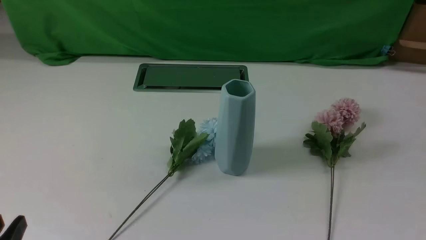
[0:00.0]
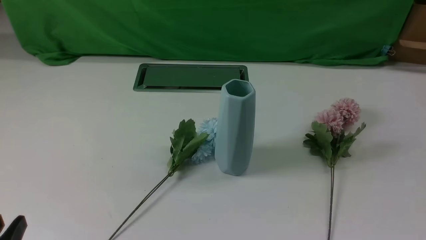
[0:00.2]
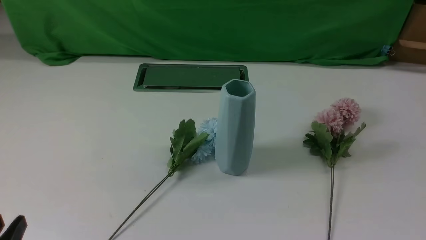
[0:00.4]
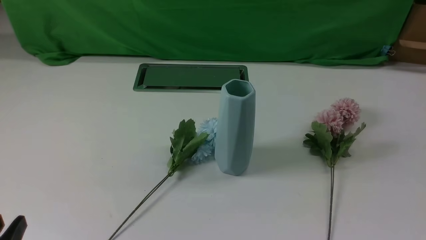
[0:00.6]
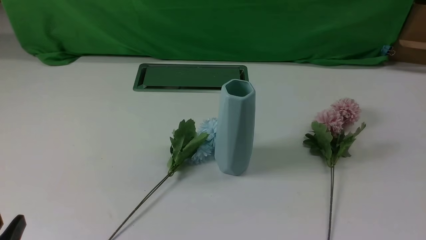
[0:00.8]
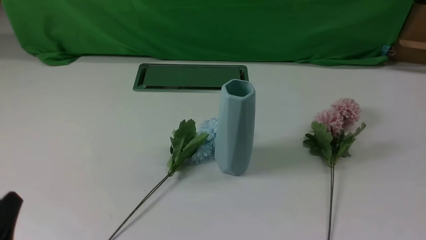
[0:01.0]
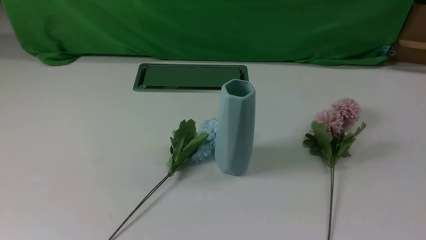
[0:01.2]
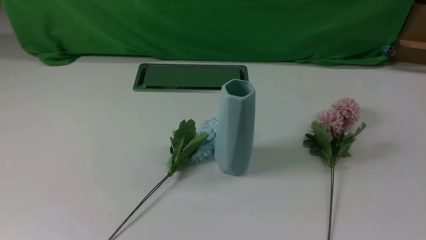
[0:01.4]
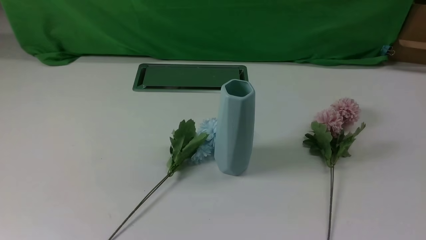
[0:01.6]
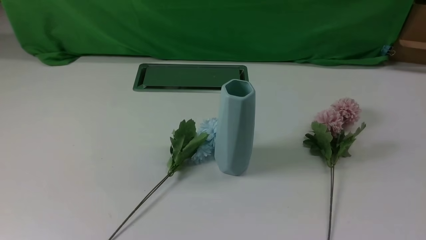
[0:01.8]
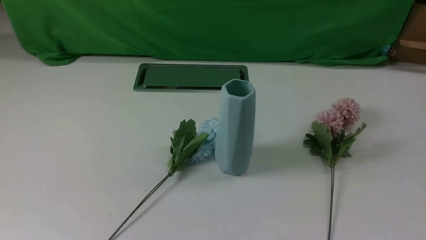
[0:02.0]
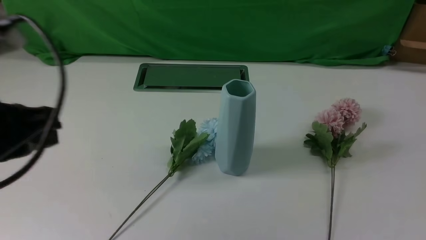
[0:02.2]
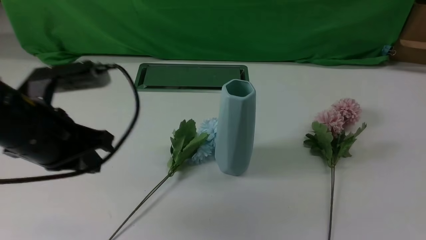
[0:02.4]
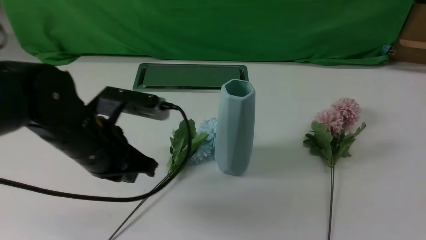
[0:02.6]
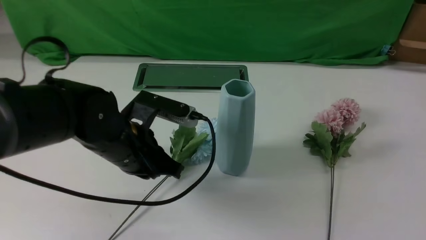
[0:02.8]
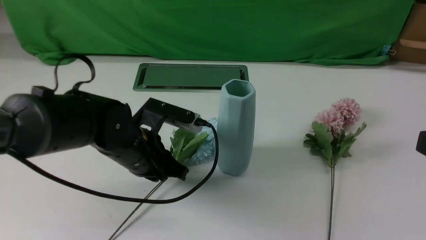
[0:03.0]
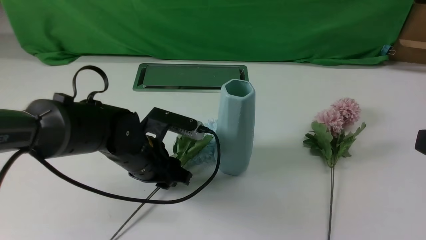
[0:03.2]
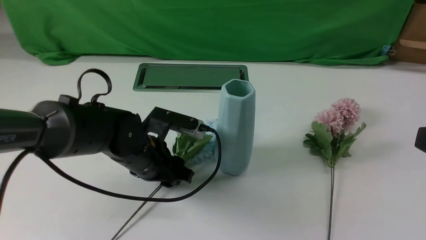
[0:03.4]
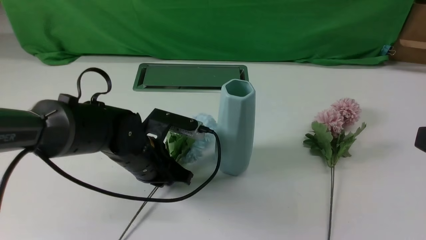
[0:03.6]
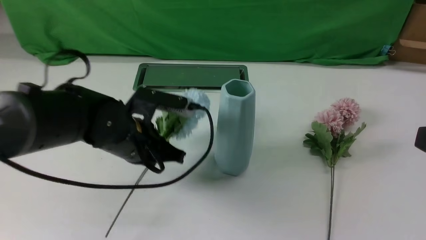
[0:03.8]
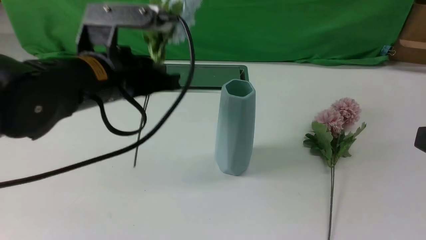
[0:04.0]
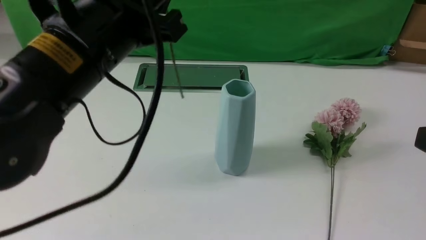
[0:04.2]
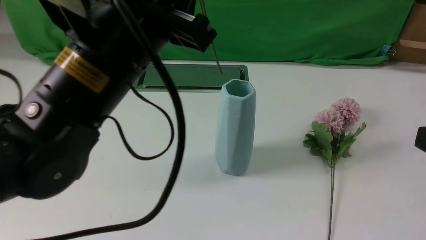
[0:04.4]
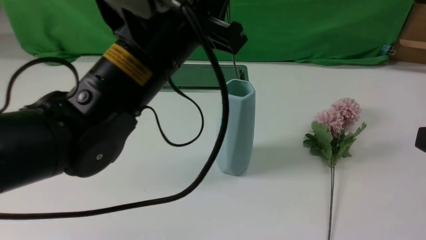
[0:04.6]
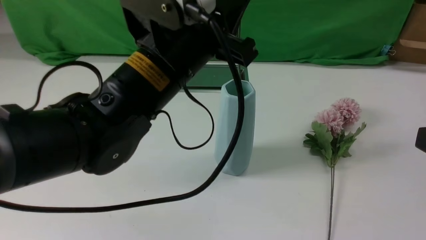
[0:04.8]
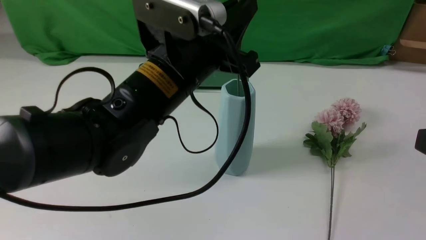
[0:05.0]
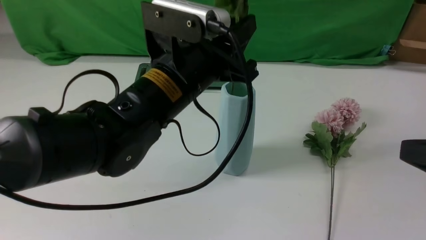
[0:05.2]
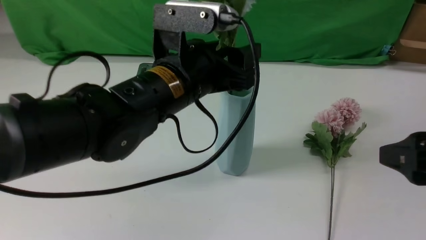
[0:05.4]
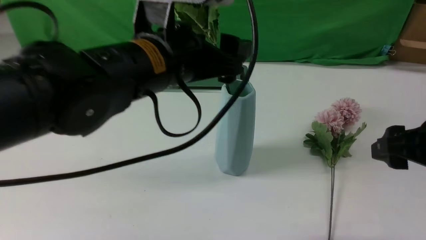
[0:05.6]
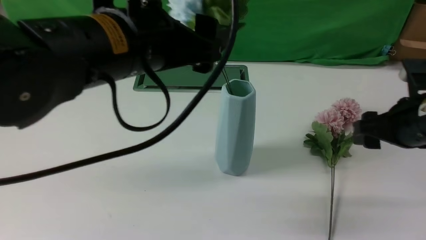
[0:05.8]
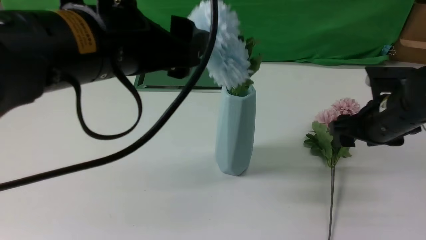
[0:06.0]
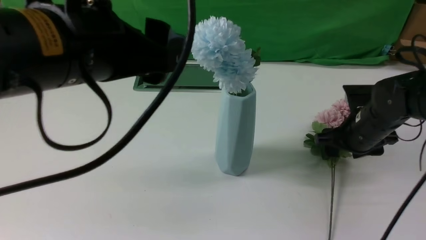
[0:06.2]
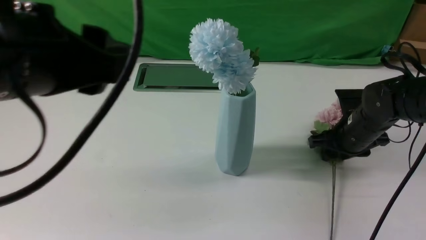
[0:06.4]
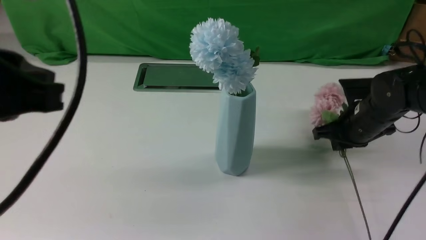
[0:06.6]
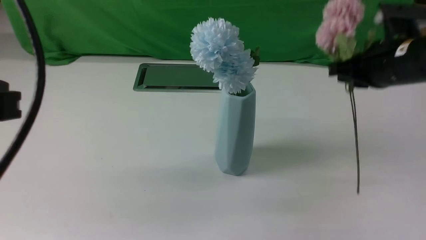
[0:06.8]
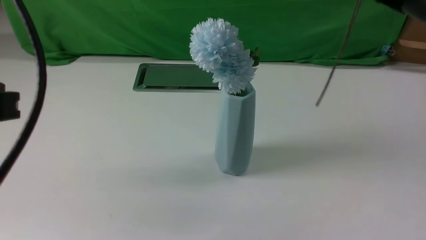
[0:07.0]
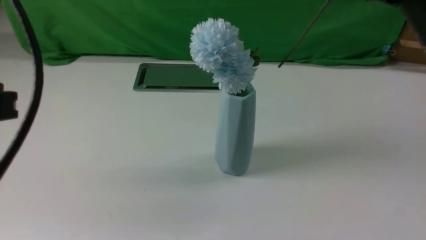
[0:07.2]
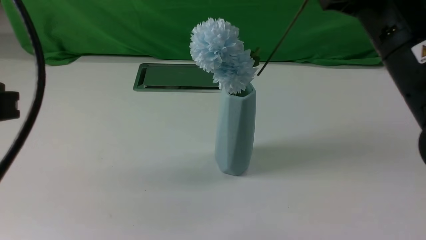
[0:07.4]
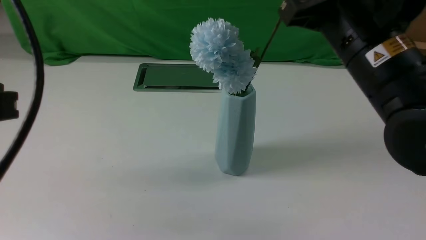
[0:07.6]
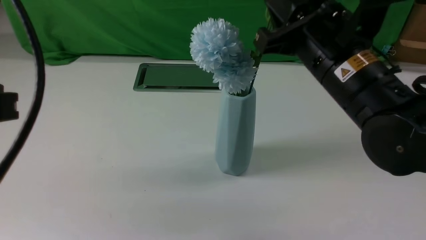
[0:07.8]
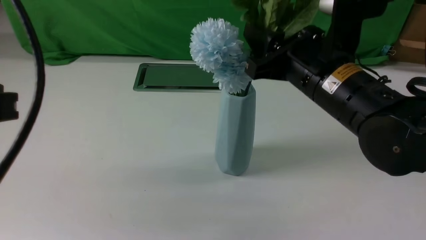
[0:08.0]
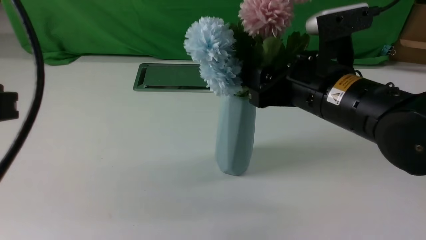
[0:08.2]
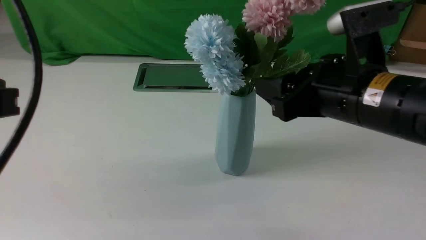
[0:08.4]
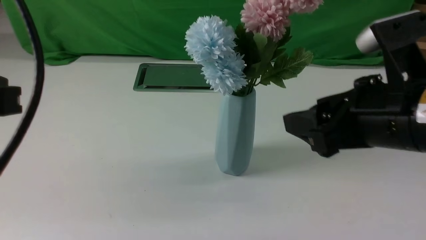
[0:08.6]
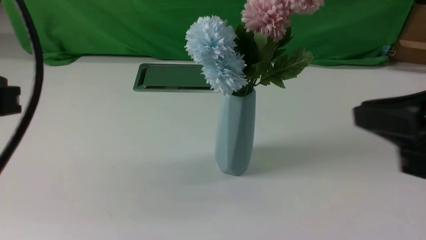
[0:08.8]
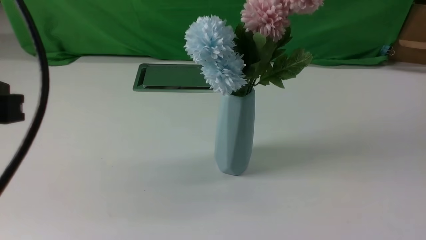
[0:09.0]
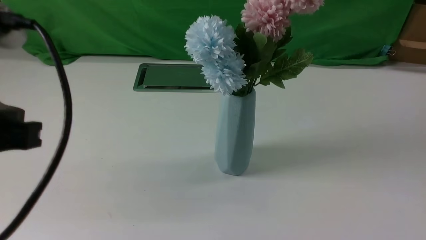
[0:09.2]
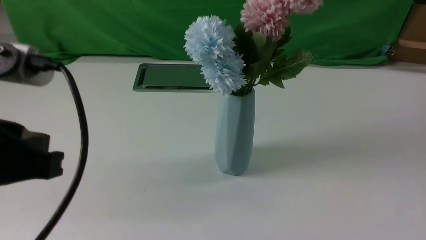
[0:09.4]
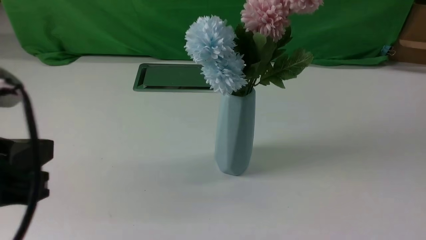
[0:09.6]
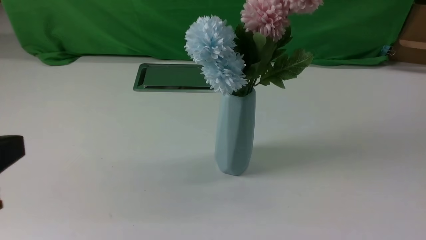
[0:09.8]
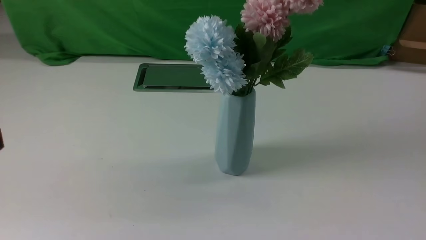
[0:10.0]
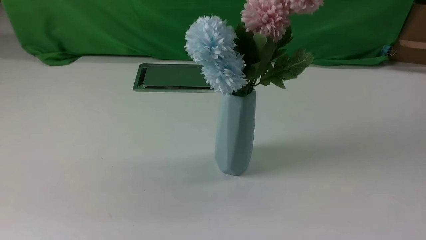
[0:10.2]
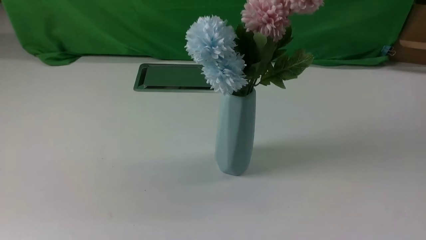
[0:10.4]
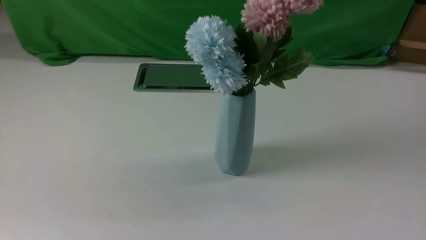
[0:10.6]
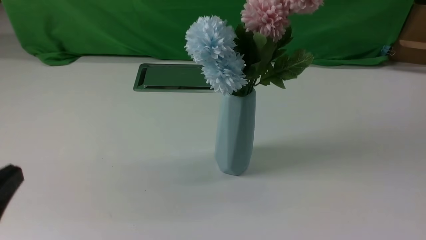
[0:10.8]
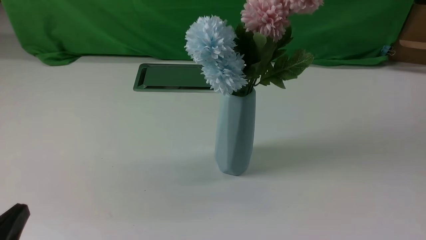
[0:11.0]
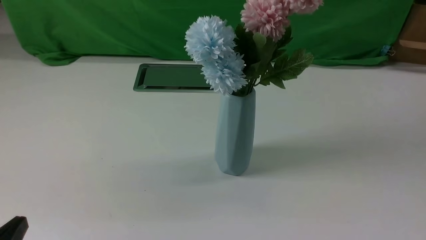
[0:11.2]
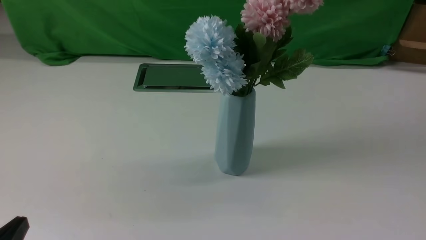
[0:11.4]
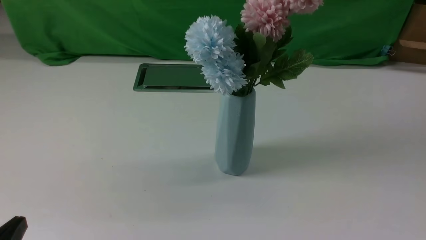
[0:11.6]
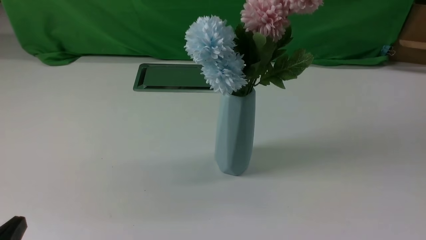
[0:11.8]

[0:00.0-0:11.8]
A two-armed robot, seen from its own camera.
Task of the whole recording: insert the flowers into the vase on the white table.
Step, 0:00.0 to 0:03.4: use the left arm to grab a bunch of fresh flowers.
Step, 0:03.6 to 0:05.6: use the left arm to insert the flowers into the vase.
Step, 0:06.0 to 0:06.6: use the right arm to grab a bunch of fresh flowers.
Step, 0:06.8 to 0:08.6: use the right arm to insert the flowers into the vase.
0:01.4 to 0:03.0: The left gripper heads forward and to the right, covering roughly 30 cm; the right gripper travels upward by approximately 15 cm.
0:03.0 to 0:04.4: The left gripper goes some 20 cm upward.
0:04.4 to 0:06.0: The right gripper moves forward and downward, some 25 cm, and opens its fingers; the left gripper goes downward and returns, about 5 cm each way, and opens.
0:06.0 to 0:07.4: The left gripper shifts about 15 cm to the left and backward, and closes up, while the right gripper heads upward, to the left and backward, covering approximately 20 cm, and closes up.
0:07.4 to 0:08.8: The right gripper travels backward and to the right by approximately 15 cm, and opens, then closes again.
0:08.8 to 0:10.4: The left gripper is displaced backward and downward by approximately 5 cm. The right gripper travels backward and to the right by some 15 cm.

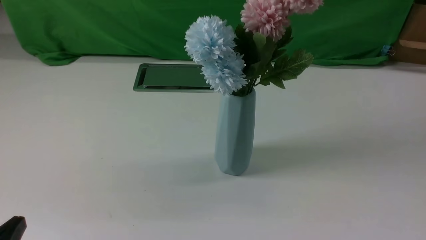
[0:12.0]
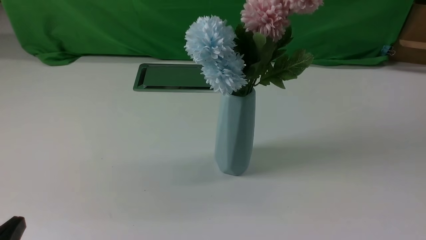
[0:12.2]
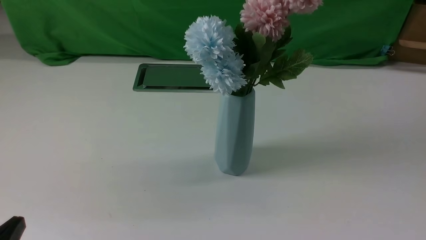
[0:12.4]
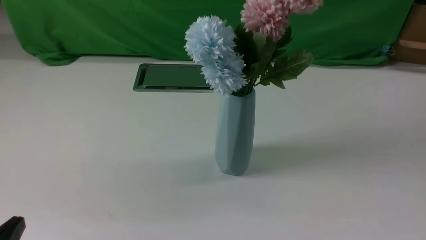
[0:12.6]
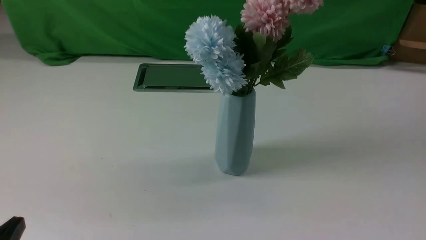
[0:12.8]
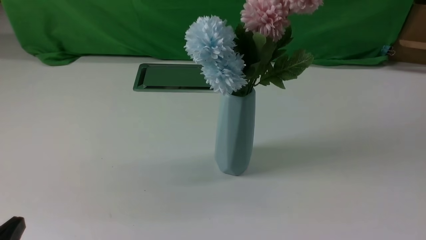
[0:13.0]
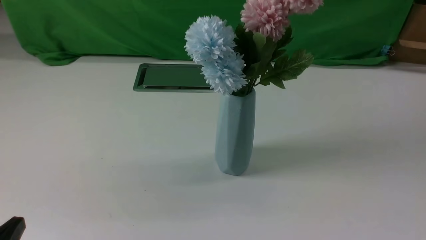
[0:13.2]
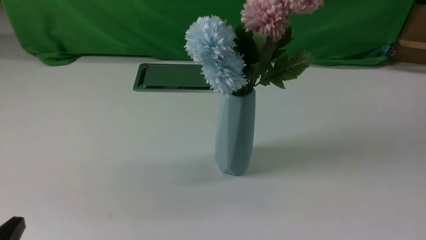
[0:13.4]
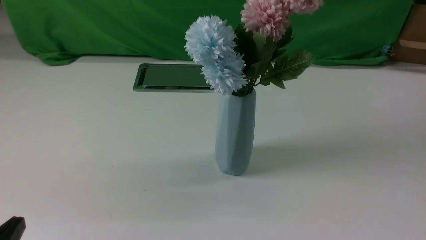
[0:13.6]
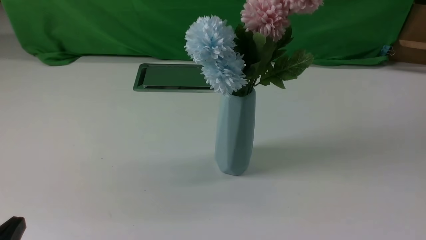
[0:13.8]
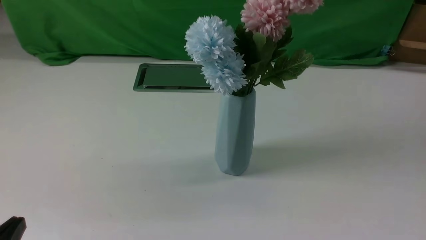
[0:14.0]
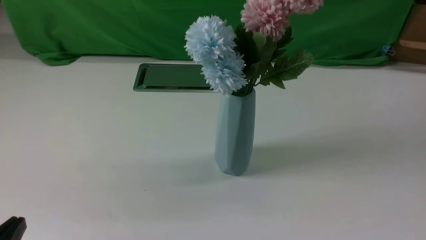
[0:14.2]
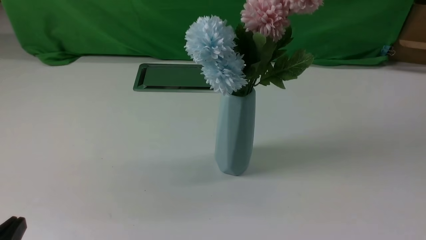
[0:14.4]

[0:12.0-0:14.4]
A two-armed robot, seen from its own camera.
Task of the whole recording: insert the flowers into the vase on the white table.
0:13.2 to 0:14.4: Both grippers stay put.
